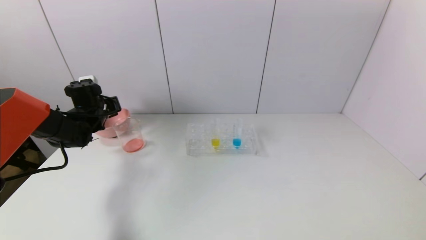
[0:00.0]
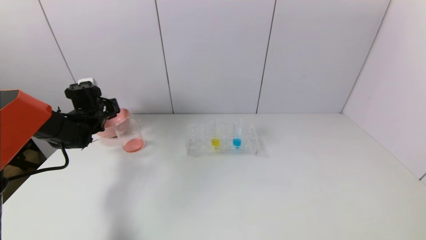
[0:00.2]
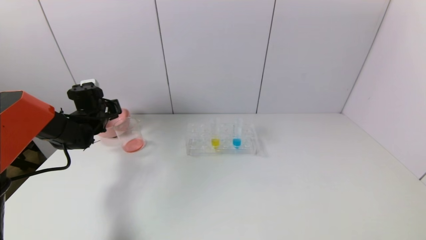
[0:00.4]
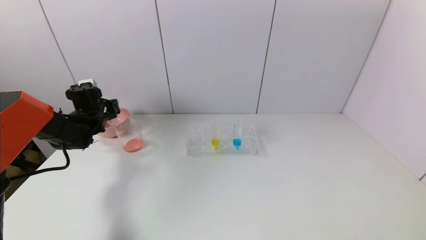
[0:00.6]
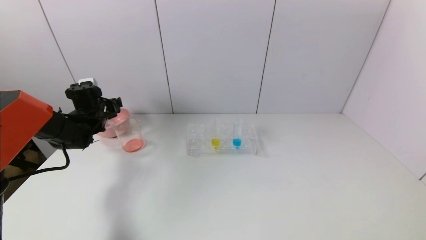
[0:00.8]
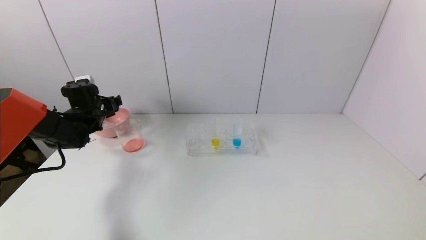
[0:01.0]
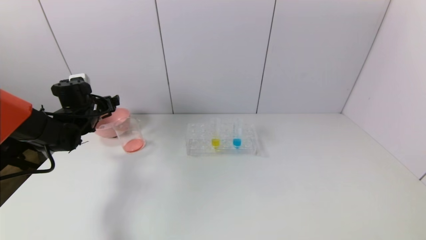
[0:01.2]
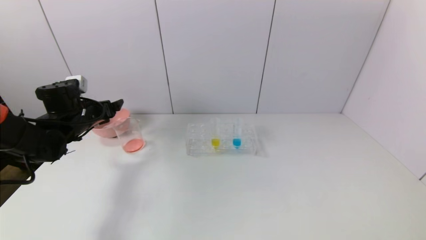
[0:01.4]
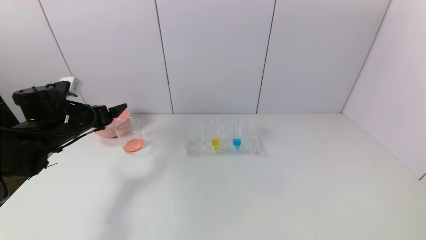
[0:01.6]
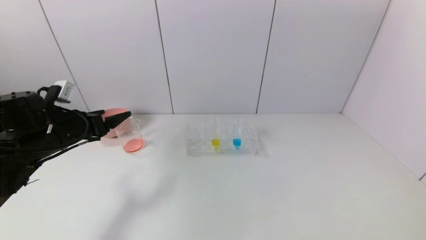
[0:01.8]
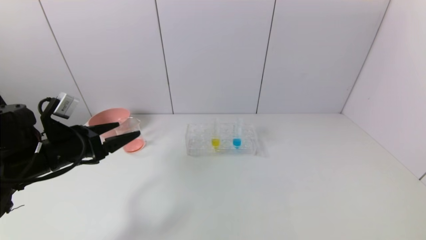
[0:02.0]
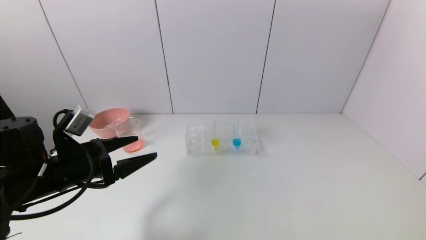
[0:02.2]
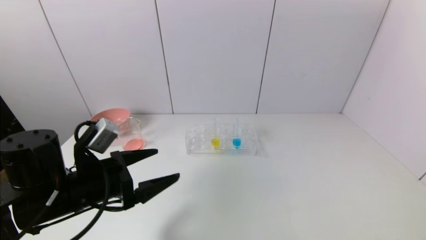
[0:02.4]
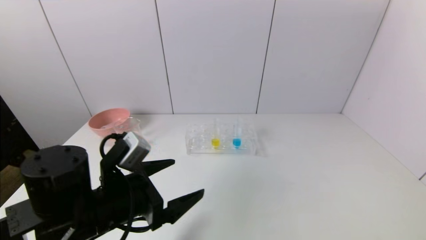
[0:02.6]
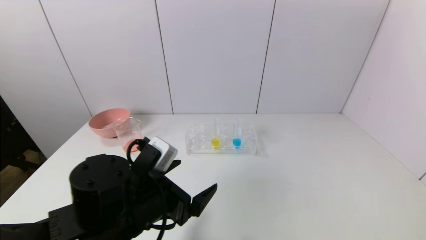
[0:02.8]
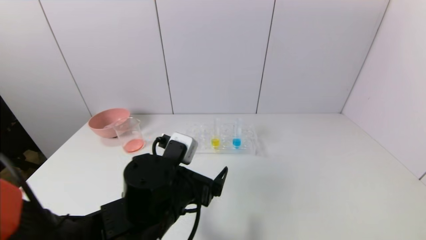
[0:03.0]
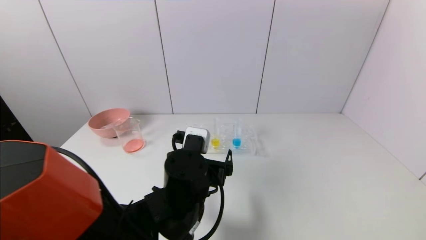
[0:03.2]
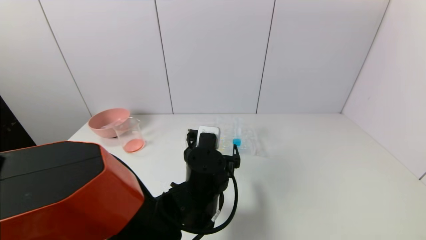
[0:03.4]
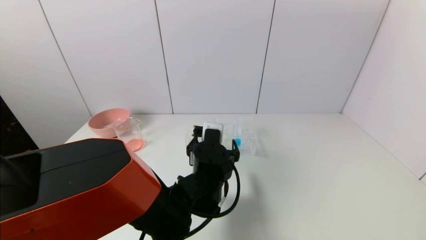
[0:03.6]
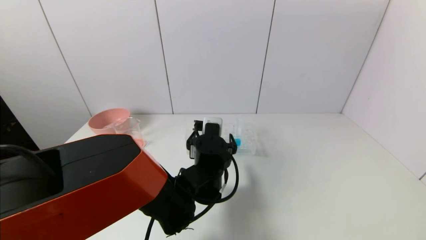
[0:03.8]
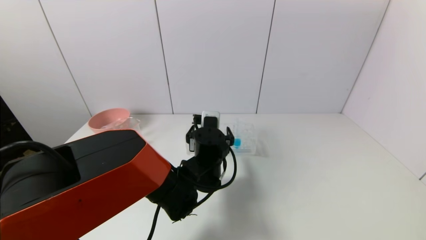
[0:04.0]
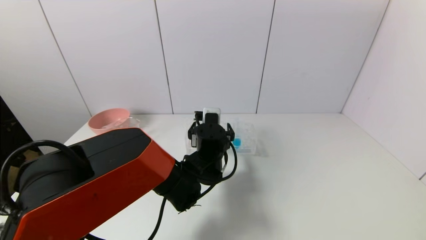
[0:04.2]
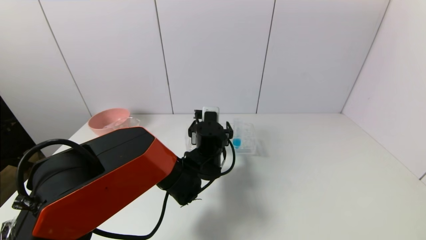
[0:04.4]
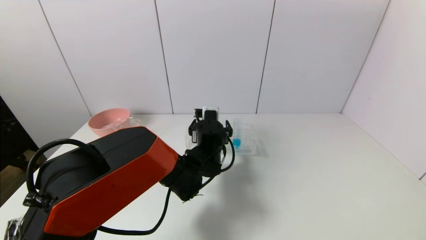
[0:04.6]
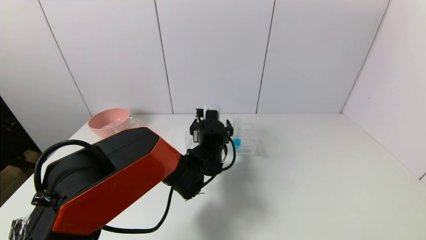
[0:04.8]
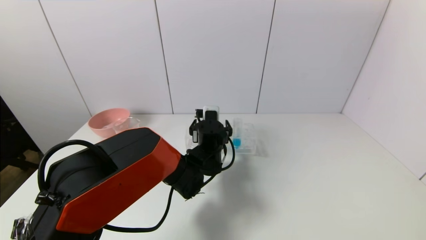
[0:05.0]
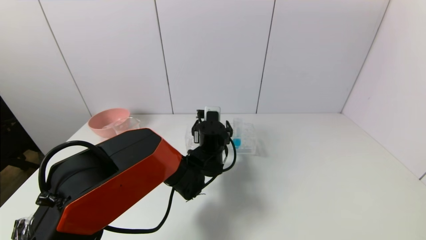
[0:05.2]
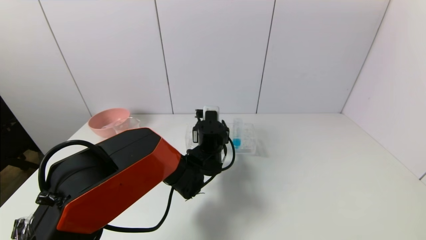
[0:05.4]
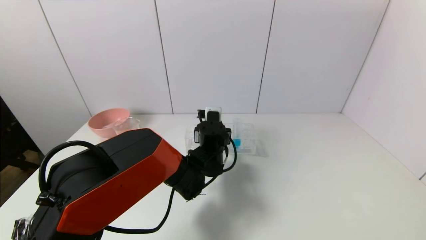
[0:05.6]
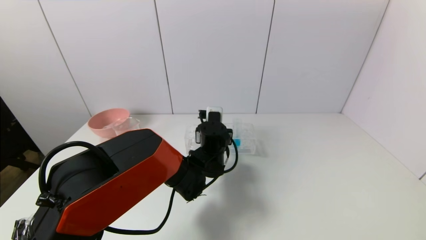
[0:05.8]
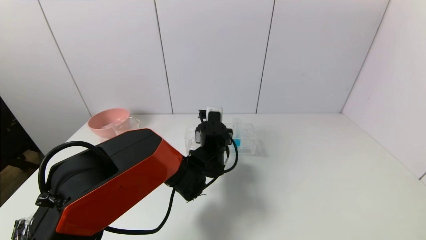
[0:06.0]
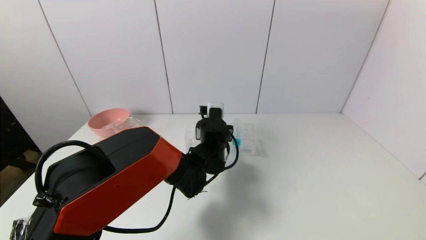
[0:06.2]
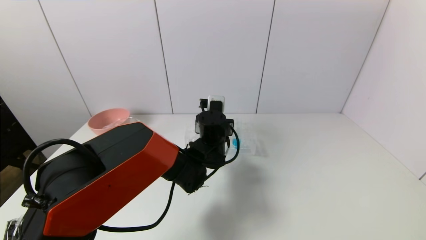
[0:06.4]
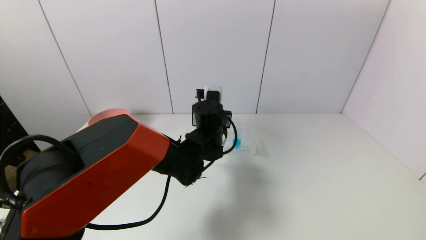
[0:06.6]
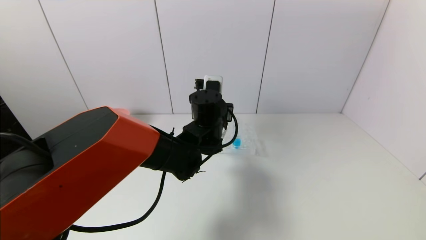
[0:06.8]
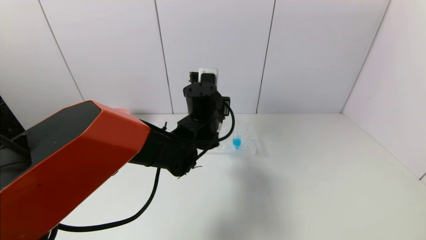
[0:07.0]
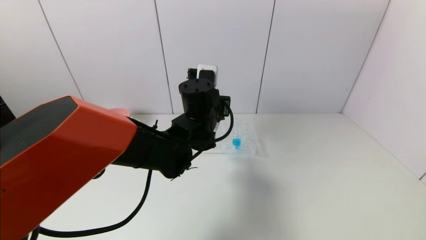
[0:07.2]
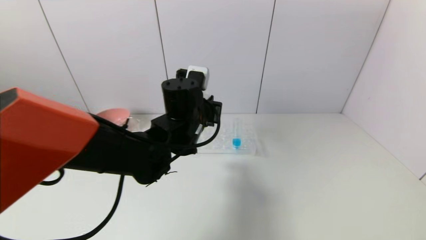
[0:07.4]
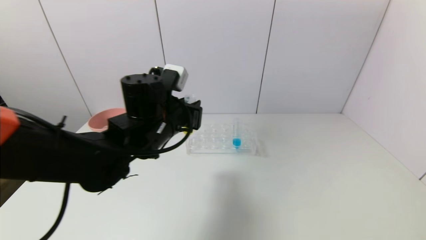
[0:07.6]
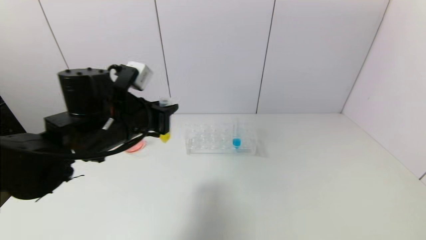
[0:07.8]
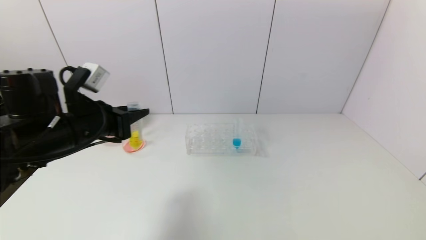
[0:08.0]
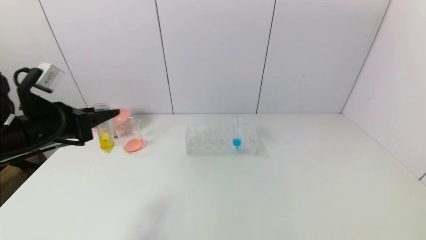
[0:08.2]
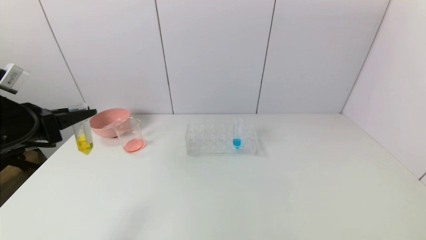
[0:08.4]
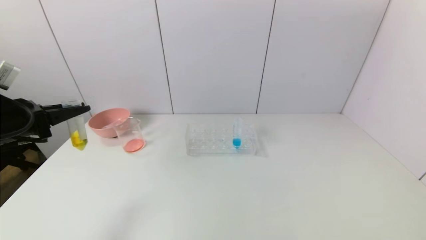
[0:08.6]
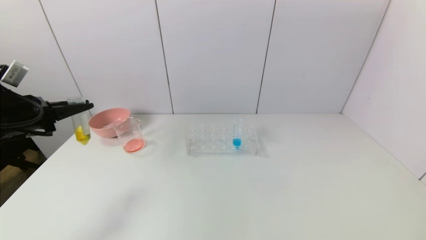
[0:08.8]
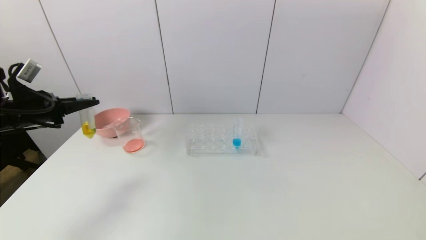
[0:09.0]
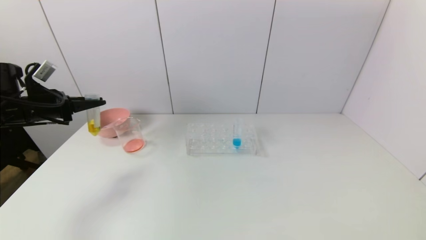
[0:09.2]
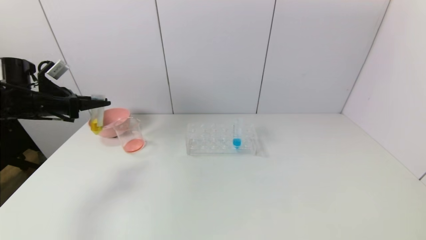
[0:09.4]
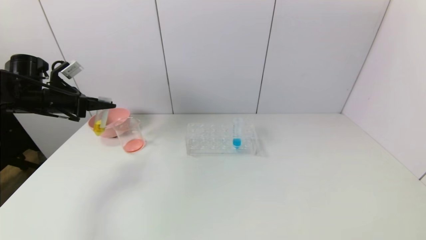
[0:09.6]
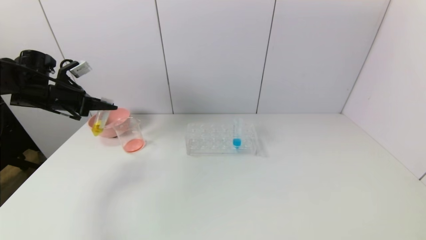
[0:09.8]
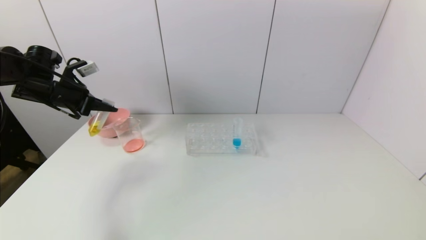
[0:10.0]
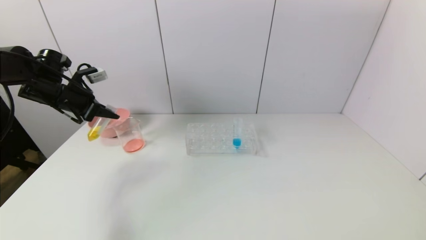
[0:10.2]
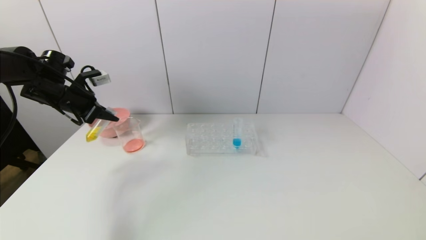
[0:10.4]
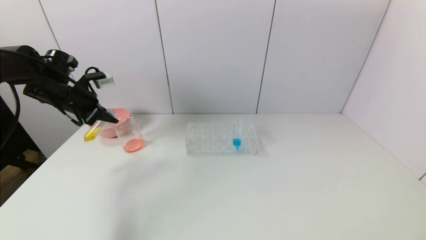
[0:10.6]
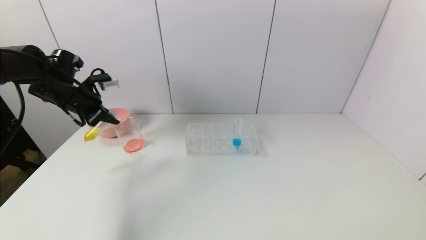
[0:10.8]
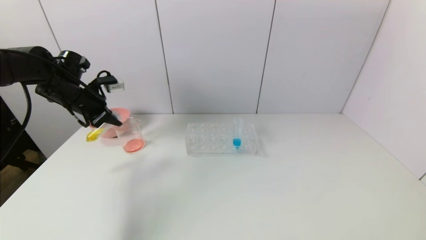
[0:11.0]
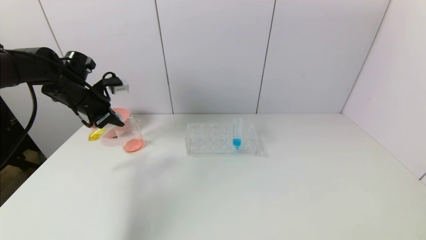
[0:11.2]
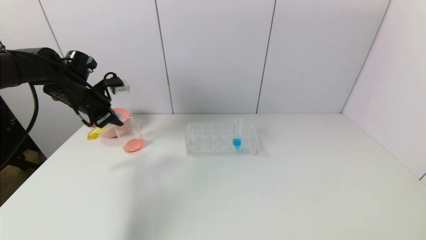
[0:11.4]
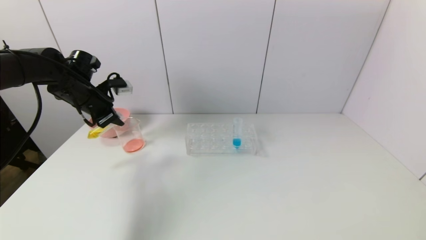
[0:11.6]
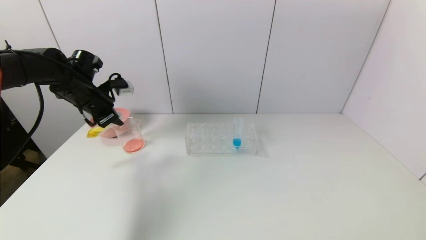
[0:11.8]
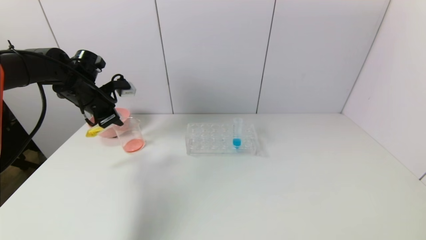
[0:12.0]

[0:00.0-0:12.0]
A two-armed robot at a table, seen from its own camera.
Task of the whole recording: pick up the test tube with yellow pigment and the test tube with red pigment by grippers and pour them into the beaker.
Step, 0:01.0 to 0:05.8: Grasp the yellow reagent with the left gripper.
0:00.0 to 0:01.6: The left gripper shifts approximately 10 cm backward, and opens its fingers.
0:01.6 to 0:03.0: The left gripper moves to the right and backward, approximately 30 cm.
0:03.0 to 0:04.4: The left gripper is displaced forward and to the right by some 15 cm.
0:04.4 to 0:06.0: The left gripper closes its fingers.
0:06.0 to 0:07.6: The left gripper heads upward, to the left and backward, covering about 20 cm.
0:07.6 to 0:09.0: The left gripper shifts some 30 cm to the left.
0:09.0 to 0:10.4: The left gripper travels forward by about 10 cm.
0:10.4 to 0:12.0: The left gripper is displaced to the right by about 5 cm.

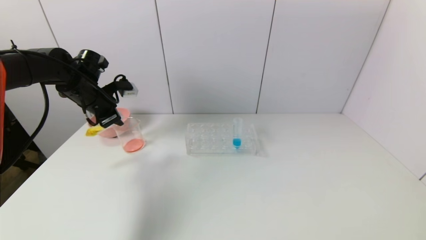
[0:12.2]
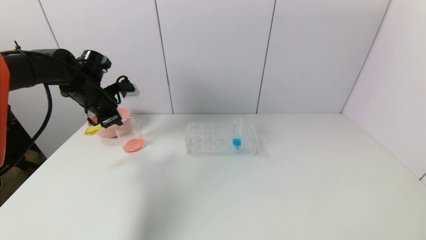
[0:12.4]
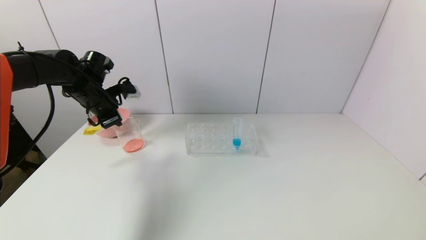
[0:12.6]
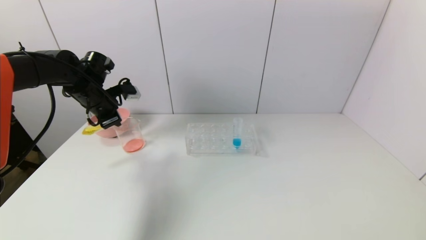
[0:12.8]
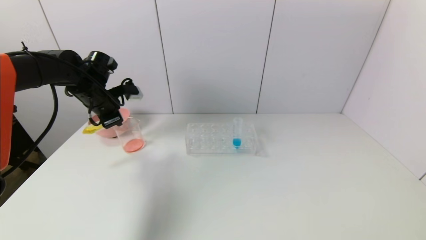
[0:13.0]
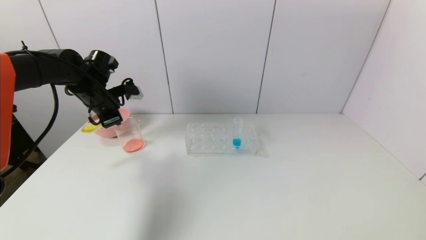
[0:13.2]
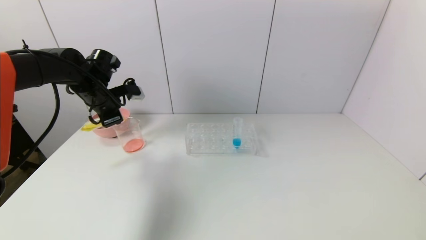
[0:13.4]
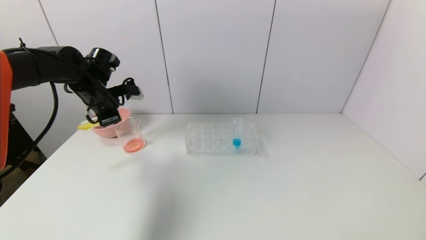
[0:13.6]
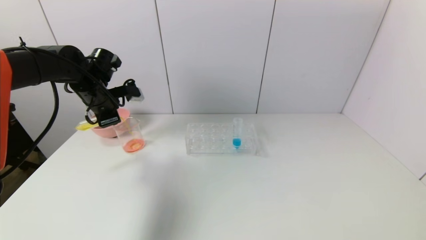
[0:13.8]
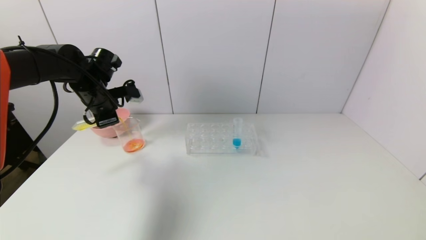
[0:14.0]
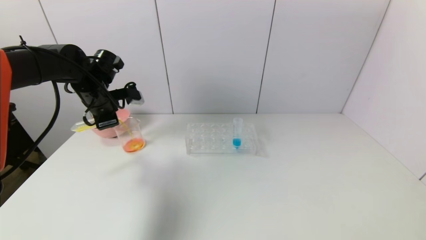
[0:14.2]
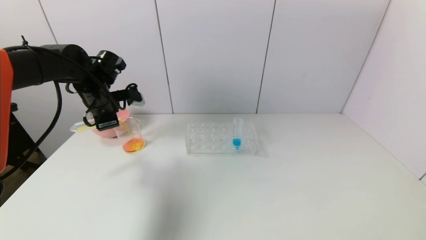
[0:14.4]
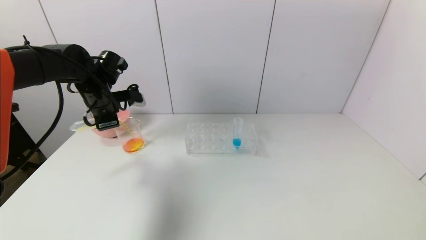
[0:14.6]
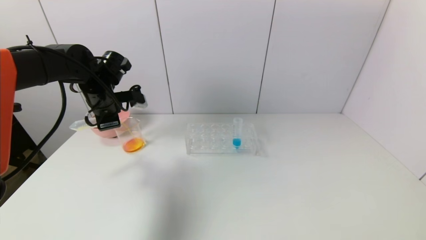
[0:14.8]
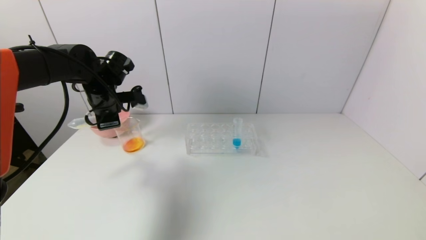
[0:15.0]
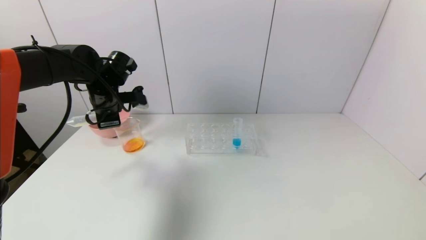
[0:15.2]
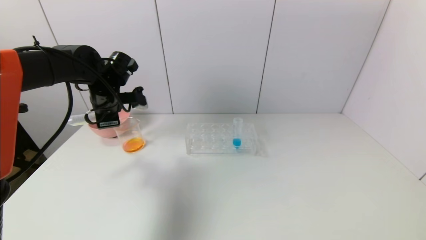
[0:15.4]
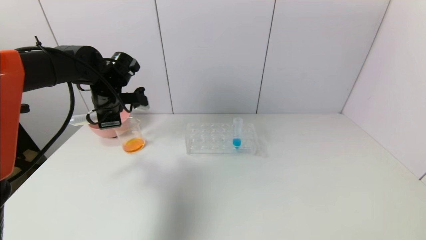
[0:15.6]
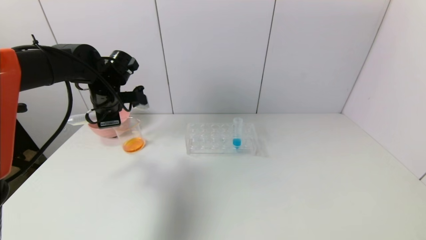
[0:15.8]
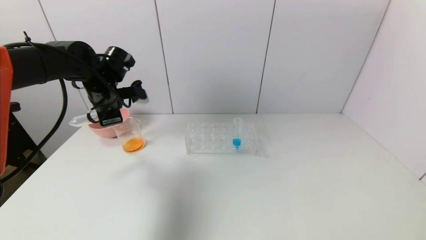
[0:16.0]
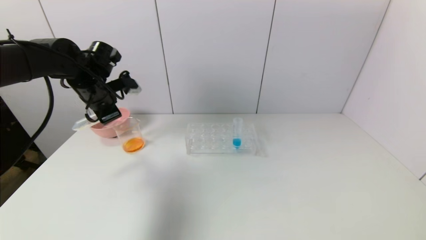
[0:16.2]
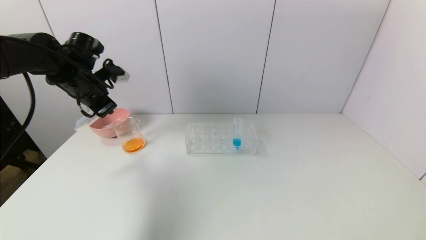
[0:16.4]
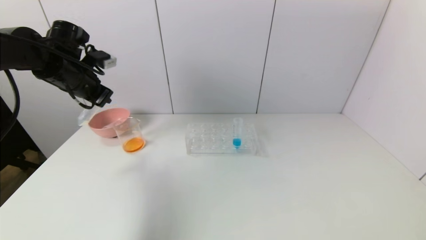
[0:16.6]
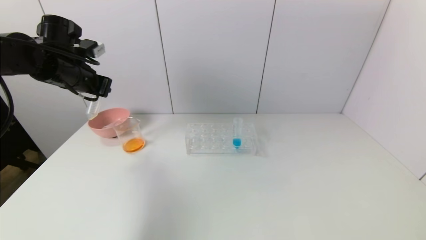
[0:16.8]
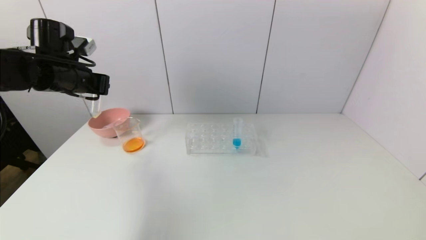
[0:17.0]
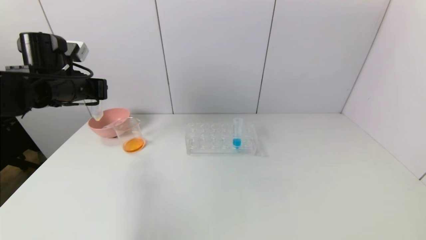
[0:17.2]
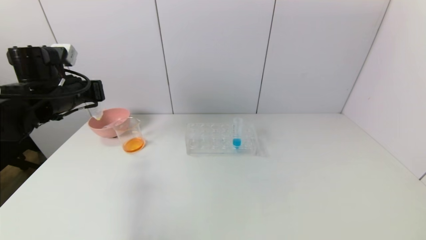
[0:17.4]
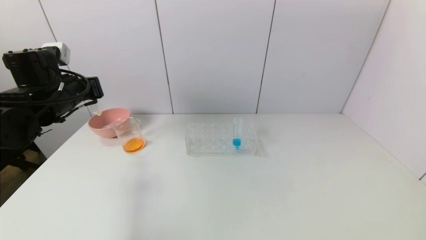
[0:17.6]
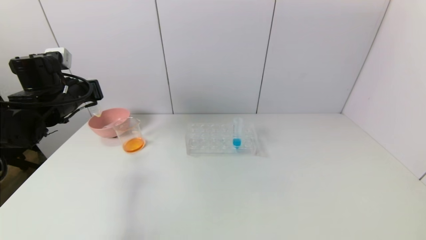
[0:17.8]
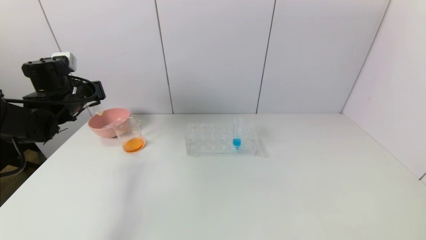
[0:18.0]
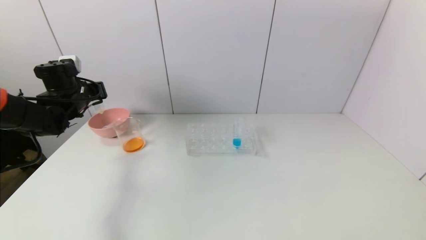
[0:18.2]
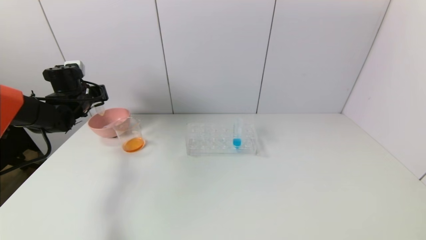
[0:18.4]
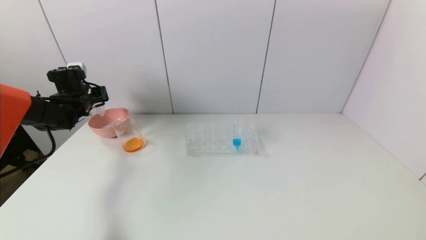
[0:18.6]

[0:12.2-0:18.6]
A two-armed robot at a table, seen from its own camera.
Task of the whole recording: pick up the test tube with yellow pigment and the test tube with red pigment by grippers and pour them into the beaker.
Step, 0:12.2 to 0:15.6: Pour the yellow reagent into the graduated cylinder with the left gripper.
0:12.2 to 0:13.8: The grippers stay close to where they were, moving slightly.
0:13.8 to 0:15.4: The grippers stay close to where they were, moving slightly.
0:15.4 to 0:17.0: The left gripper is displaced to the left and upward by some 10 cm.
0:17.0 to 0:18.6: The left gripper travels downward, forward and to the left by approximately 15 cm.
